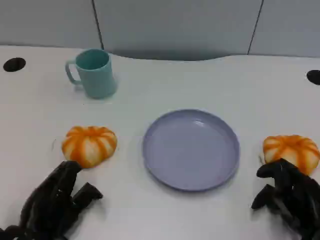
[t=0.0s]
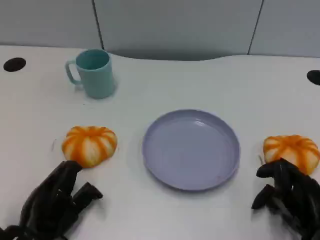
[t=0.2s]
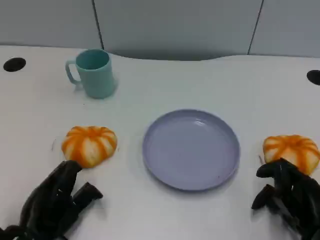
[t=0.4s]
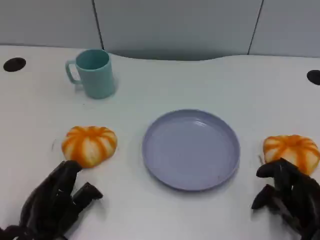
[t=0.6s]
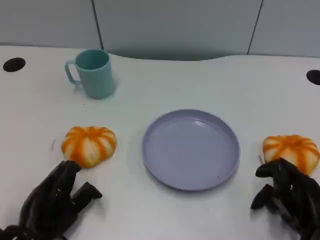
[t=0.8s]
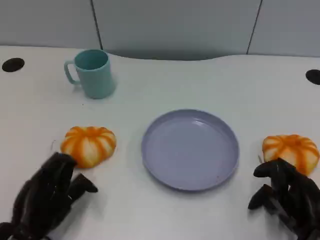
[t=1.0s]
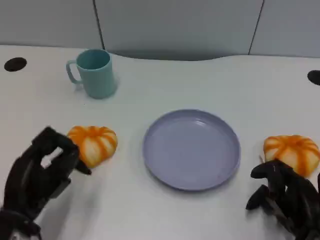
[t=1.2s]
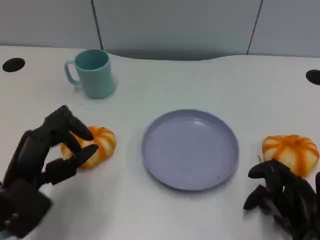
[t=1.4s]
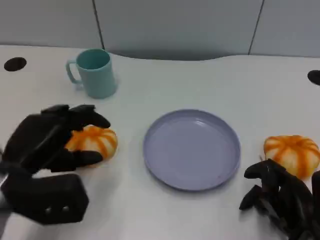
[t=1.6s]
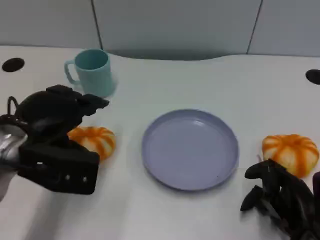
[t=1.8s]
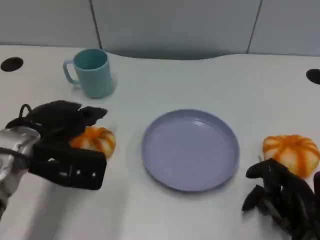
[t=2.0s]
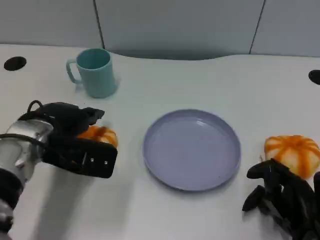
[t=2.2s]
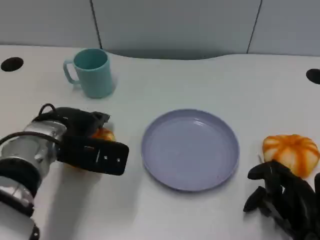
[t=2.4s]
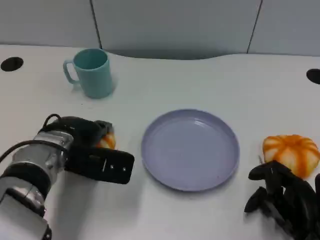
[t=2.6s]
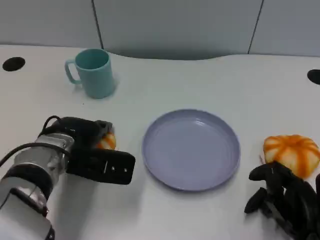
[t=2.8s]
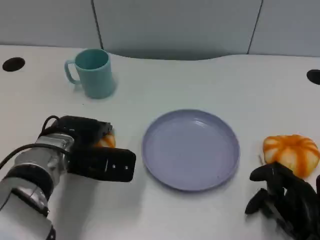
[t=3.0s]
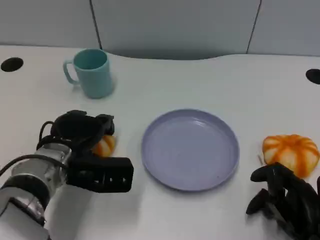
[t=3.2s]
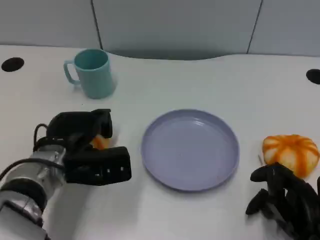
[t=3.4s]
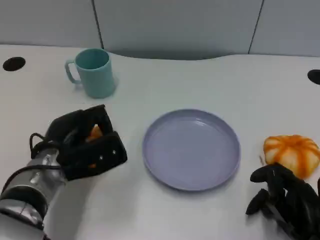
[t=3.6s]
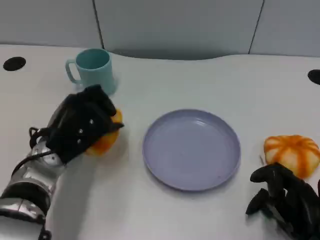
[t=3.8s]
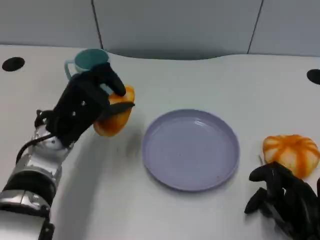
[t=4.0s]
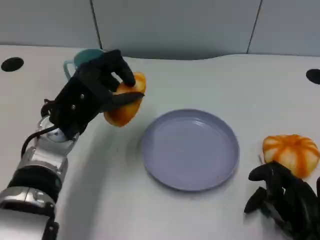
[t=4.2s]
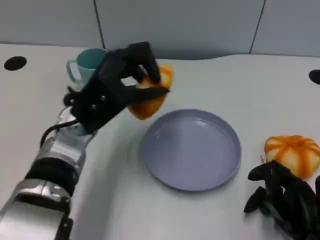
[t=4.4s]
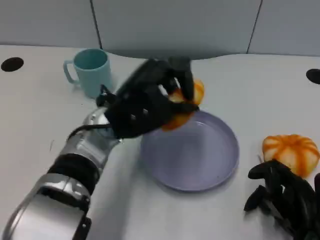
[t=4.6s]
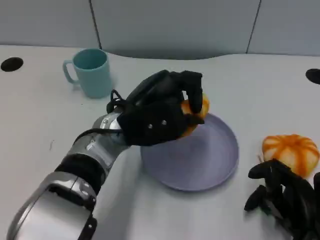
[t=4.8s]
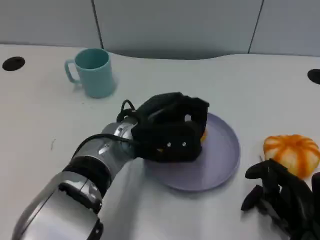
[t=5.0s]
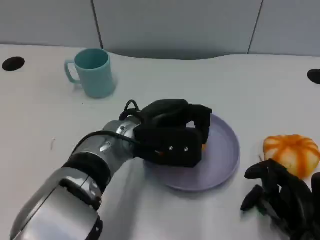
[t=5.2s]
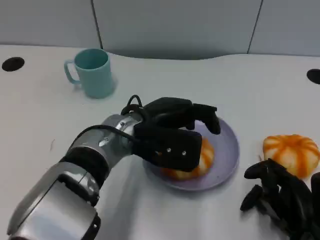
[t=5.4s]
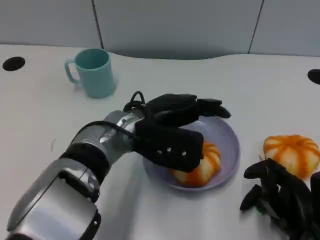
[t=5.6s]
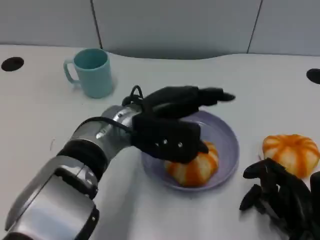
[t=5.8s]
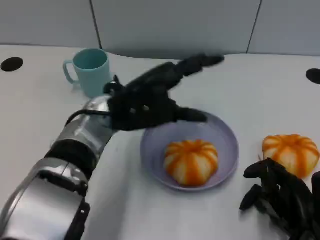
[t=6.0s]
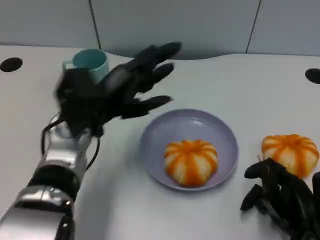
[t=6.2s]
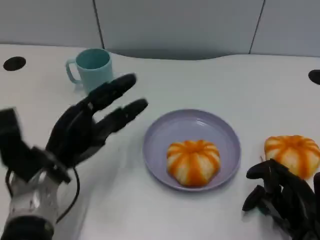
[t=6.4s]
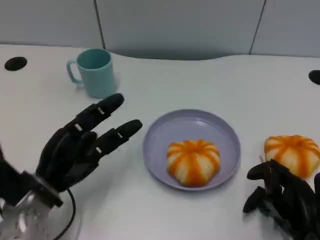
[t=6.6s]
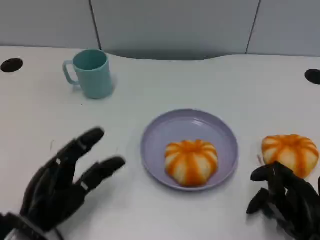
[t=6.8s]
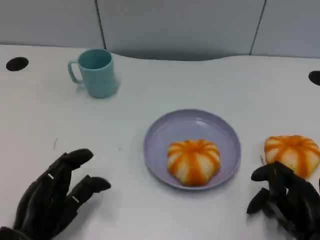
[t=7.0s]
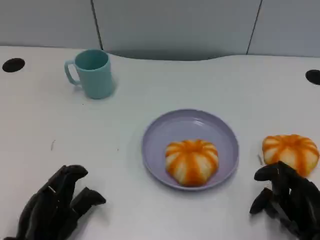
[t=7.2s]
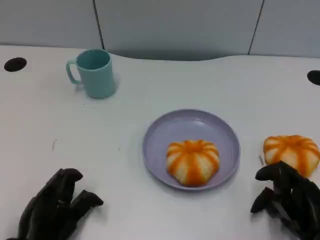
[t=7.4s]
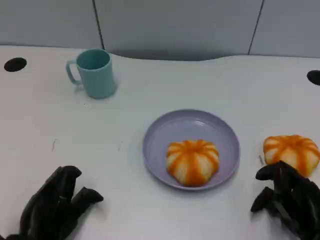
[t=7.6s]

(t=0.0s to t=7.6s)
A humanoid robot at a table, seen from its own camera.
Task of the whole recording: Grasp the bread from the table and place it into the plate.
t=0.0s - t=1.6s: The left hand travels upward and forward by roughly 15 cm.
t=1.6s - t=3.0s: The left hand heads forward, to the right and downward, covering approximately 10 cm.
t=3.0s - t=4.6s: The left hand goes some 10 cm to the right and upward.
t=6.0s - t=7.6s: The left hand heads backward, downward and to the left, covering about 25 cm.

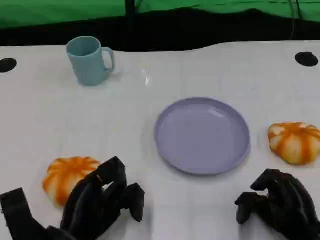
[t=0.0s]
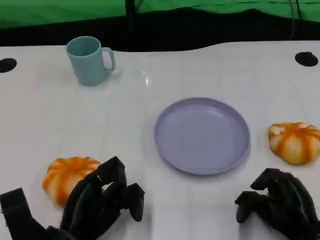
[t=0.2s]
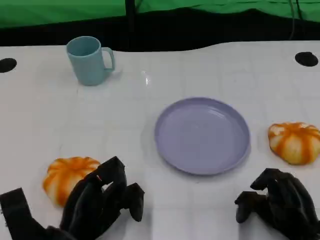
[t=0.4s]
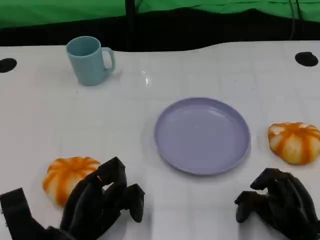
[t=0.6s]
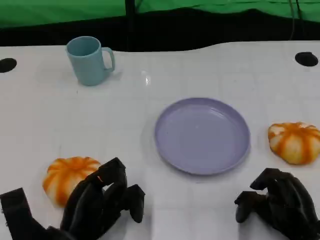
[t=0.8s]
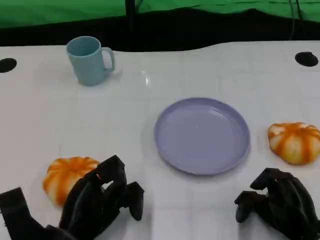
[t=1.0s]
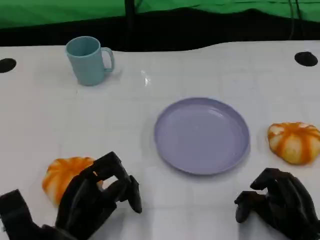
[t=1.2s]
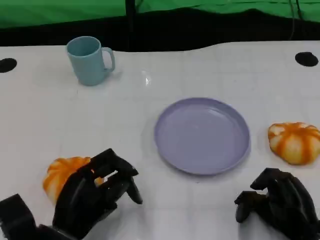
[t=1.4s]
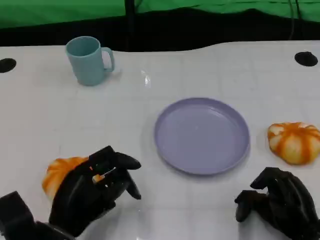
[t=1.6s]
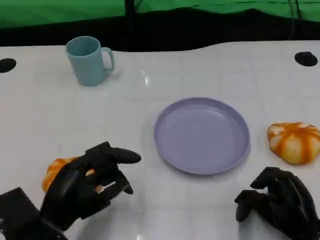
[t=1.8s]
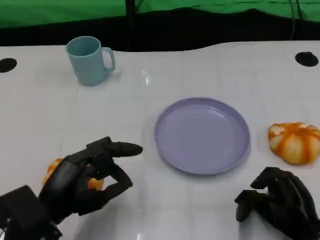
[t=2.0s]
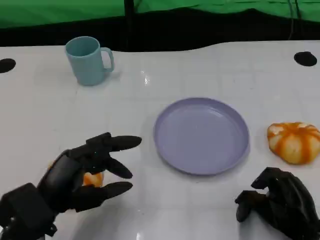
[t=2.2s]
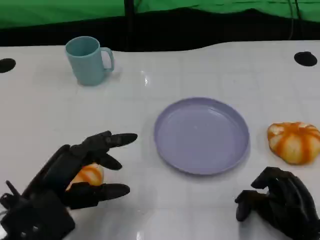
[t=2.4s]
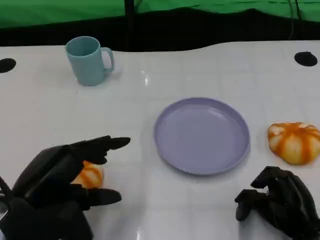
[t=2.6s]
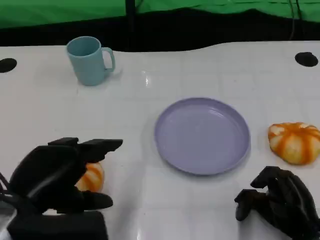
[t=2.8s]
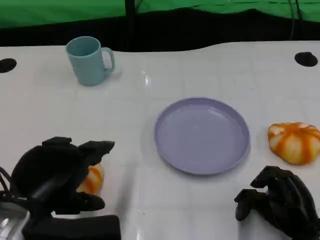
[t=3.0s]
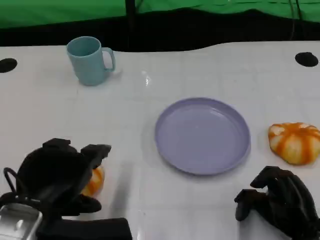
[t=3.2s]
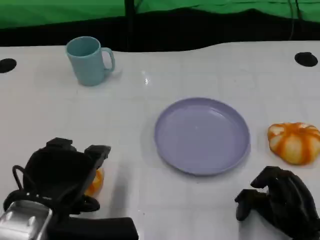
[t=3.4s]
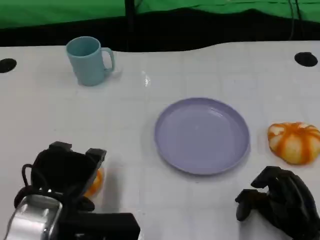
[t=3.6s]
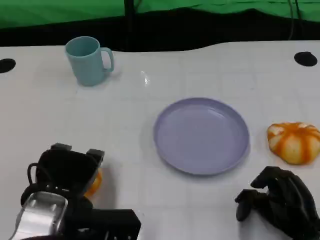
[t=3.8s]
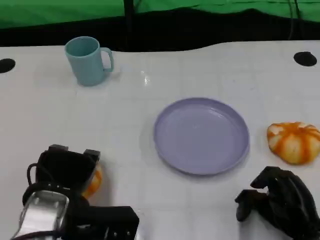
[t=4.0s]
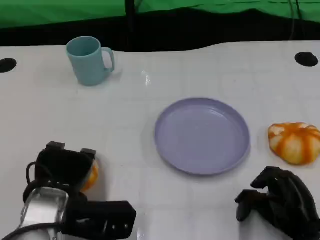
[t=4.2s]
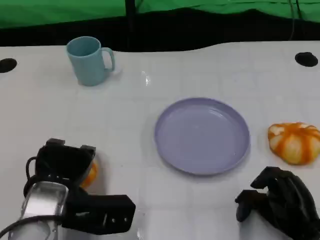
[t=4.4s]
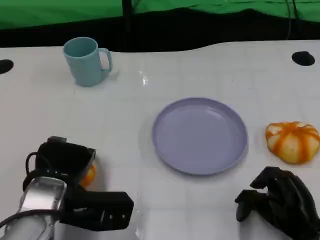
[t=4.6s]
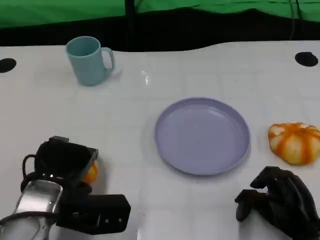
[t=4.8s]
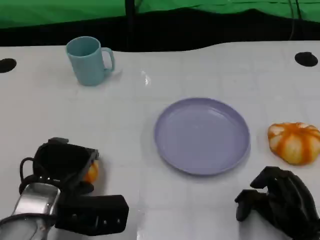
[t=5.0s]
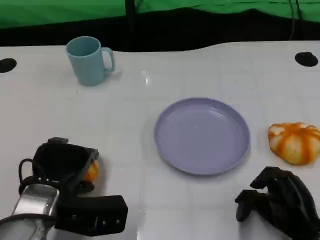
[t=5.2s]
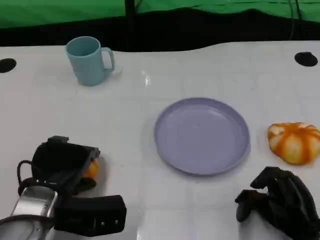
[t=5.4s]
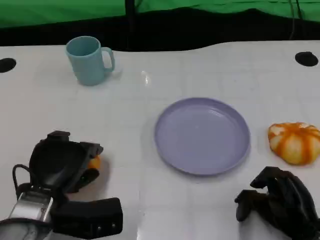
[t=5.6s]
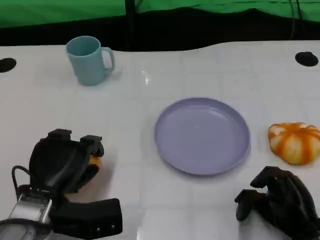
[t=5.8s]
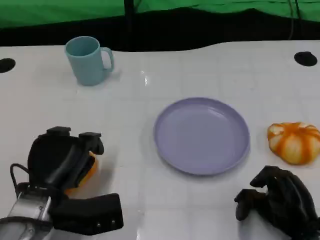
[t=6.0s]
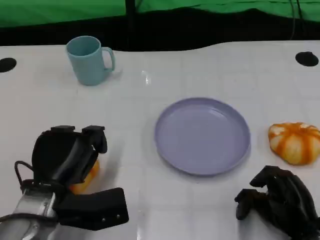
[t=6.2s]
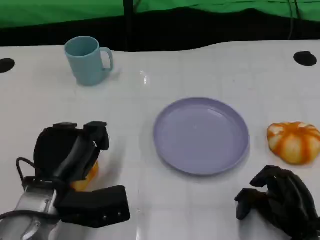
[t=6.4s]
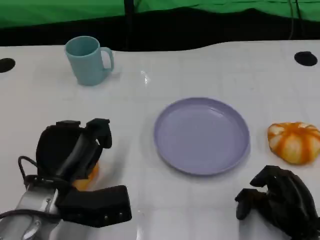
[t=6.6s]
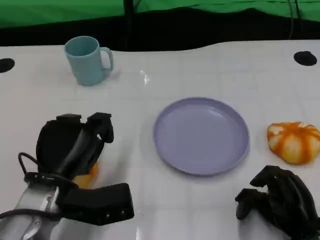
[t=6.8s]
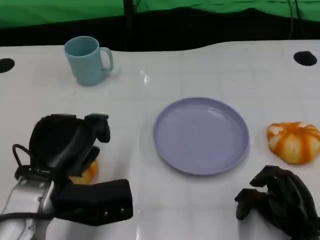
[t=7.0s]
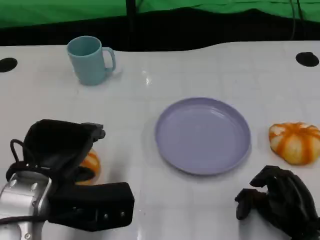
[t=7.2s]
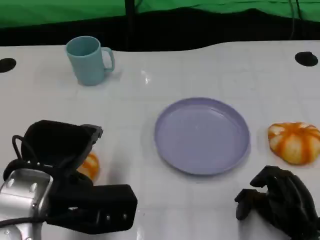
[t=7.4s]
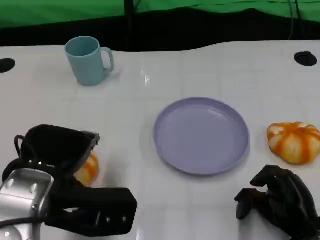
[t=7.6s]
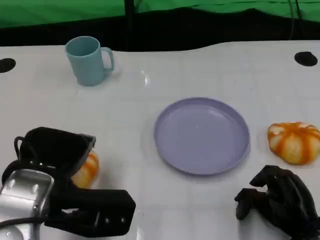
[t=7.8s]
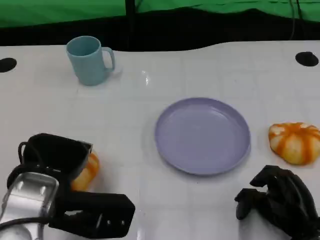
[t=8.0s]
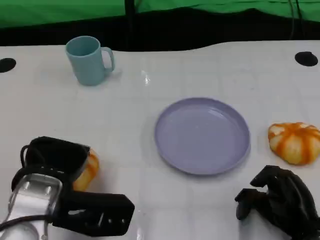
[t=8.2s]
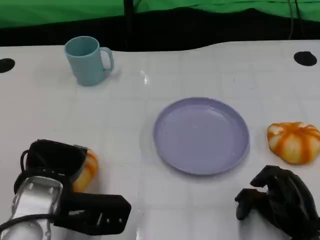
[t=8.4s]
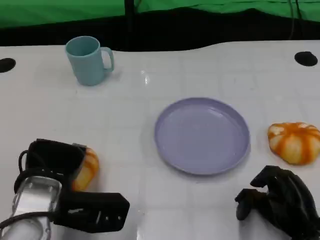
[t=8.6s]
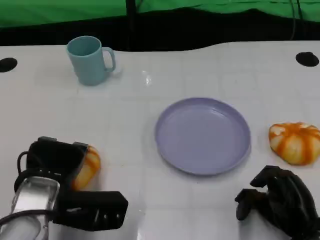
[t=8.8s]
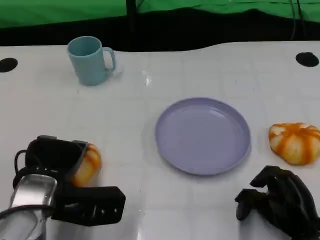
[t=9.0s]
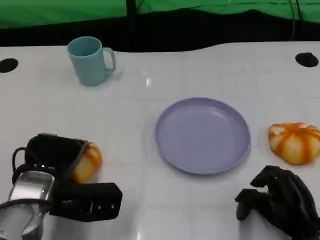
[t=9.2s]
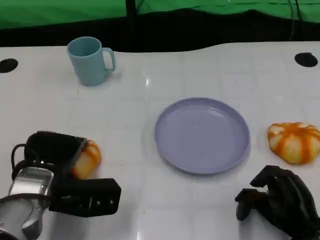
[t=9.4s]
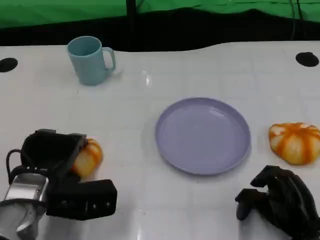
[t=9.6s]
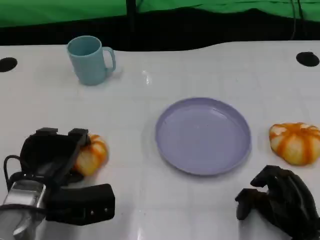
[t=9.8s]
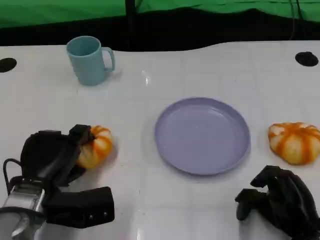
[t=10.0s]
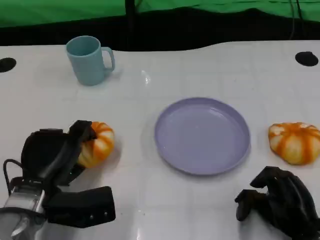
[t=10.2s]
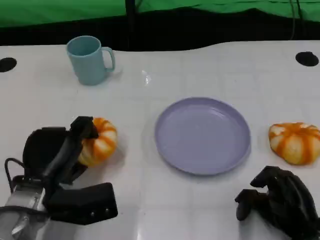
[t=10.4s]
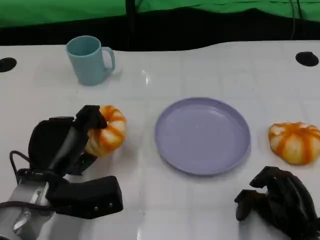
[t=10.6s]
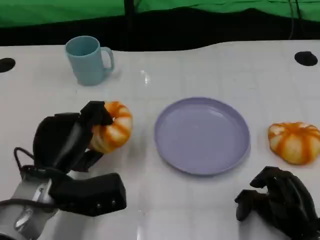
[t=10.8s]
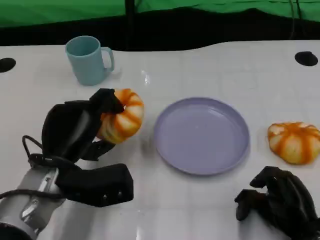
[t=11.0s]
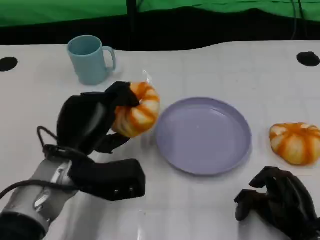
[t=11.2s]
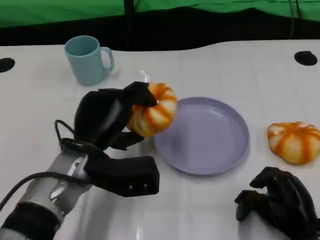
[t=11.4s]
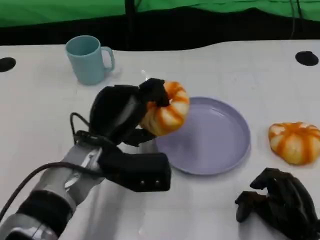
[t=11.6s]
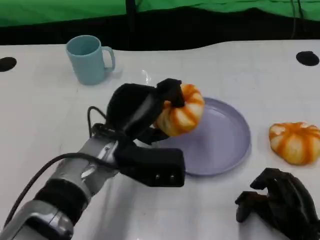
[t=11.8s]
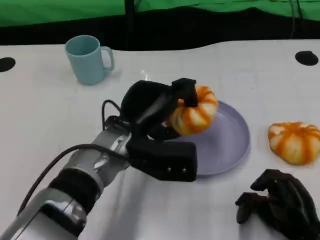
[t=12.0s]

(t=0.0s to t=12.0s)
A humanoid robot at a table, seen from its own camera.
Task of the whole recording: Grasp the bread from the table and place it into the plate.
t=1.6s - t=3.0s: The left hand heads upward, covering roughly 10 cm.
t=3.0s - t=4.4s: The left hand shifts about 10 cm downward and forward.
t=6.0s - t=7.6s: The left hand travels upward by roughly 10 cm.
t=7.6s - t=9.0s: The left hand moves downward, about 10 cm.
t=10.4s - t=12.0s: The left hand shifts some 15 cm to the right, upward and forward.

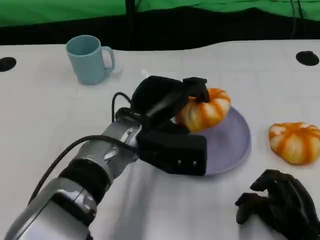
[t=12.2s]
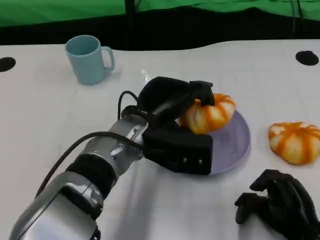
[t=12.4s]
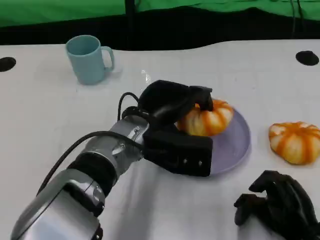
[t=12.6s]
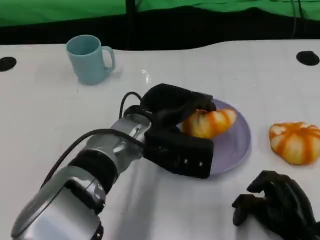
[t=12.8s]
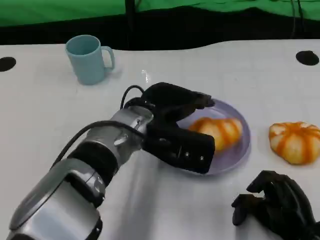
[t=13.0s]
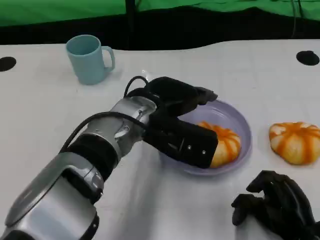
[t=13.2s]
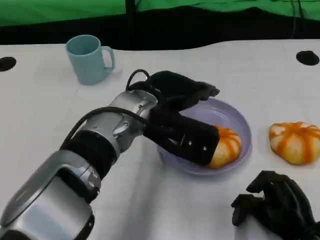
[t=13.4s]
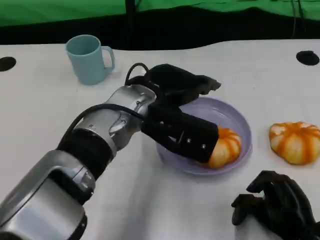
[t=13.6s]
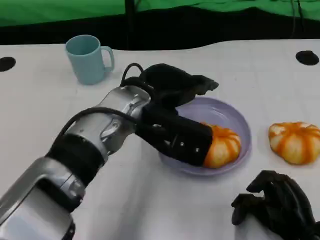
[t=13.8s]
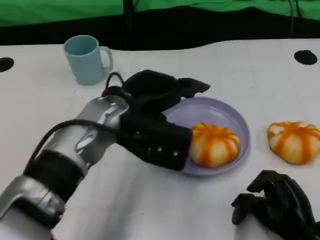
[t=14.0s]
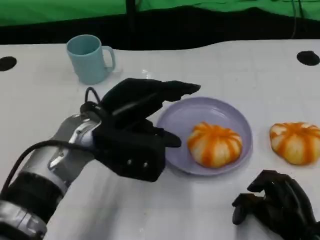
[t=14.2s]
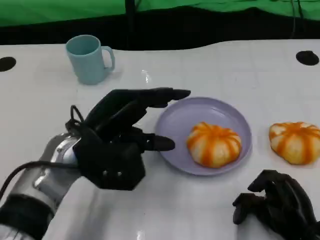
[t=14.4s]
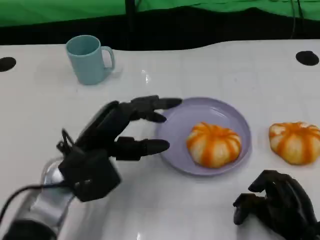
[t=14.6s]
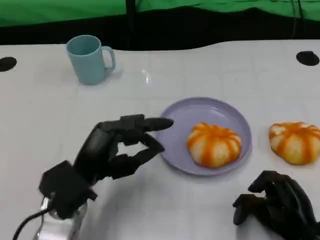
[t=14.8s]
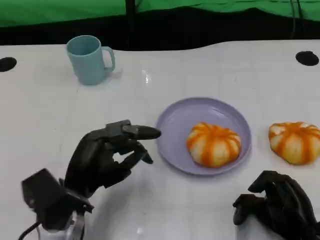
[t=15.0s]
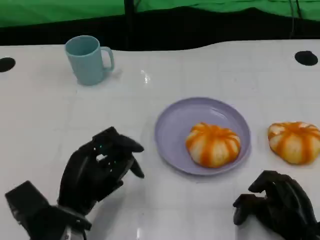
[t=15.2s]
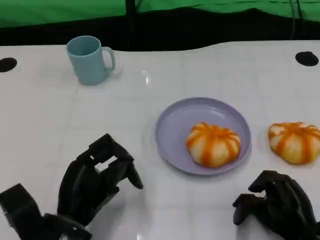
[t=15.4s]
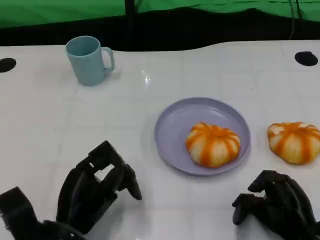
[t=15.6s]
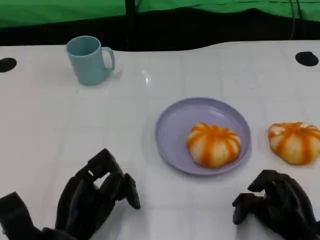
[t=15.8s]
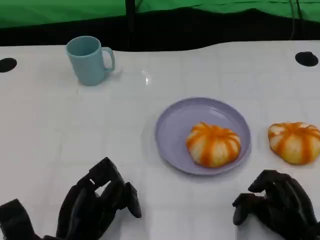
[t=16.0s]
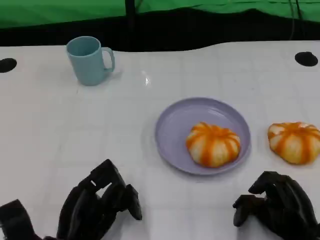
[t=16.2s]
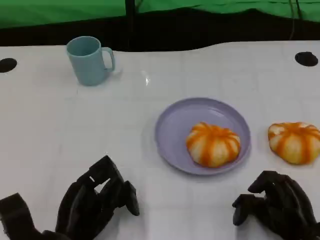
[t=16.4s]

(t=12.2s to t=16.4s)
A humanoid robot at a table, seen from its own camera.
Task of the whole recording: Grasp the bread from the table and place it into the plate.
t=12.2s - t=13.6s: The left hand changes place by approximately 5 cm.
t=13.6s - t=15.0s: The left hand goes roughly 20 cm downward, to the left and backward.
t=15.0s - t=16.4s: The left hand shifts by roughly 5 cm.
